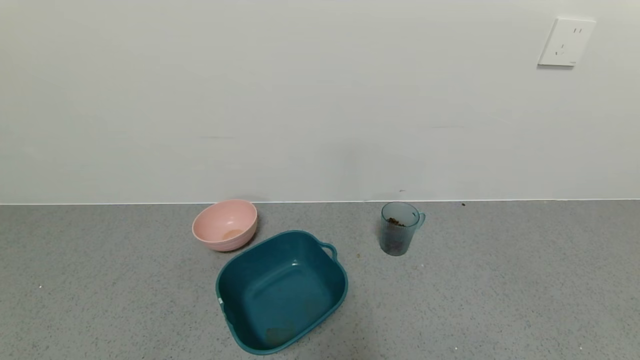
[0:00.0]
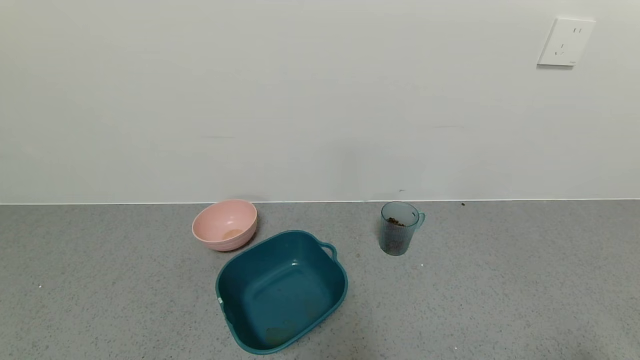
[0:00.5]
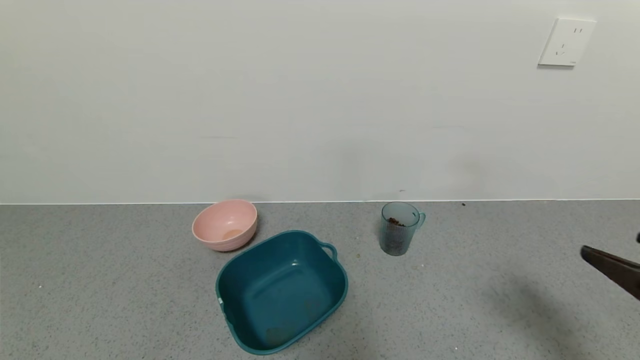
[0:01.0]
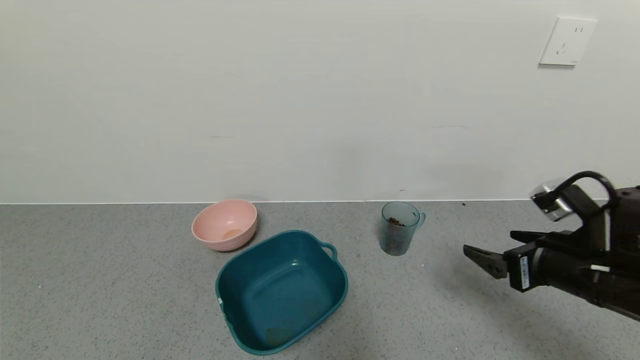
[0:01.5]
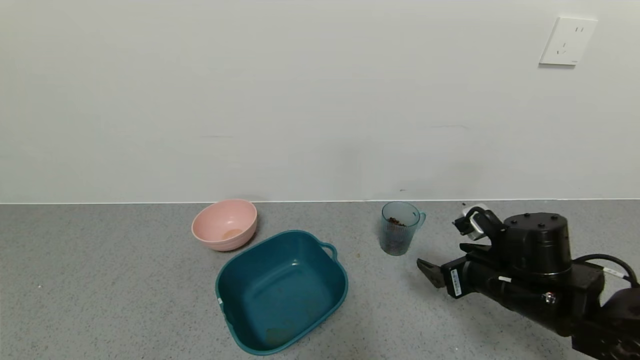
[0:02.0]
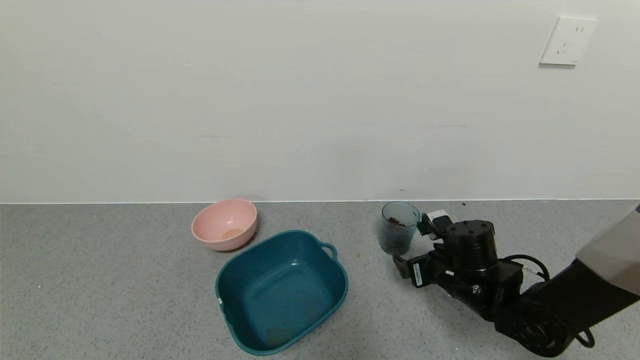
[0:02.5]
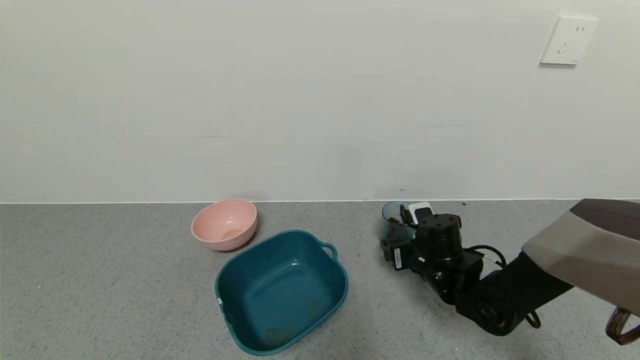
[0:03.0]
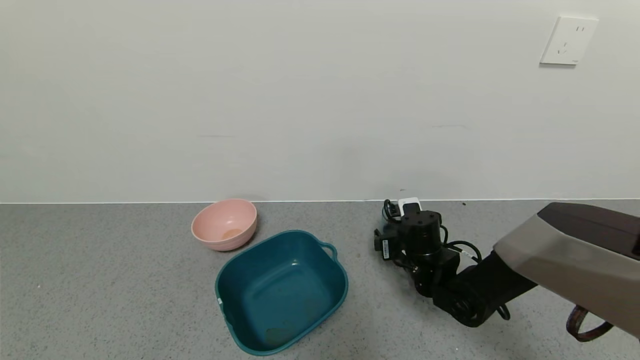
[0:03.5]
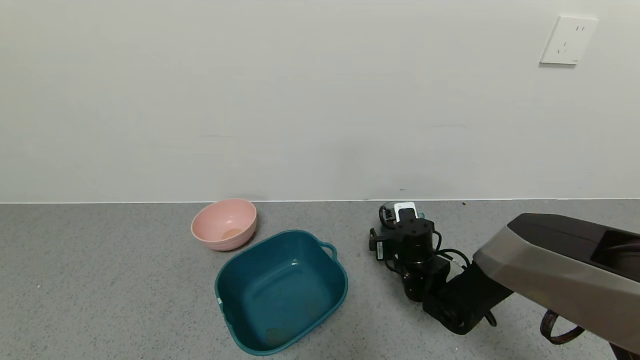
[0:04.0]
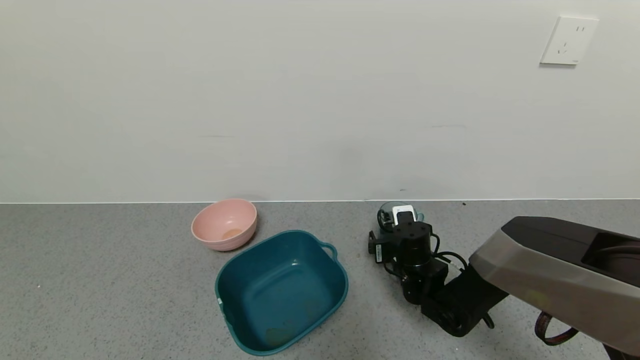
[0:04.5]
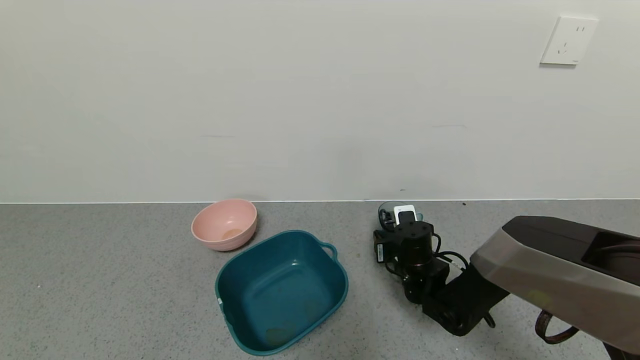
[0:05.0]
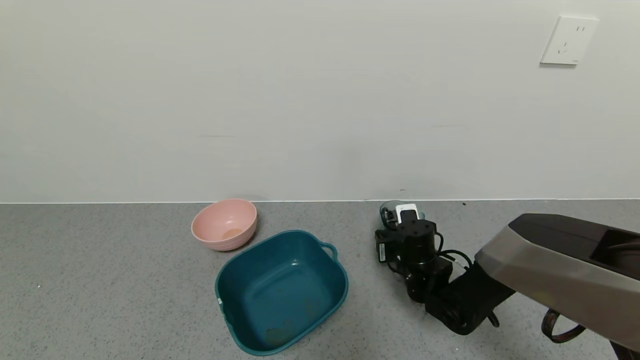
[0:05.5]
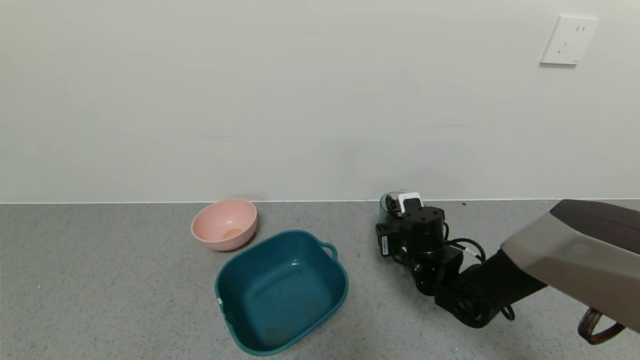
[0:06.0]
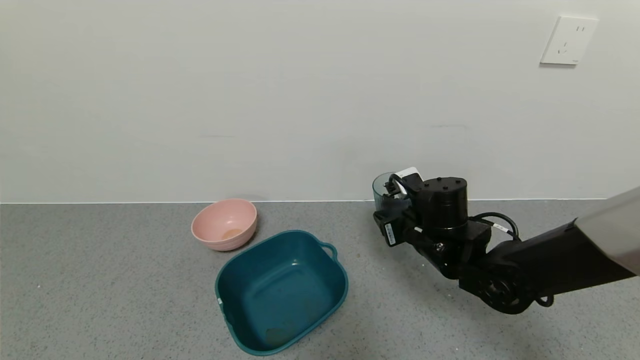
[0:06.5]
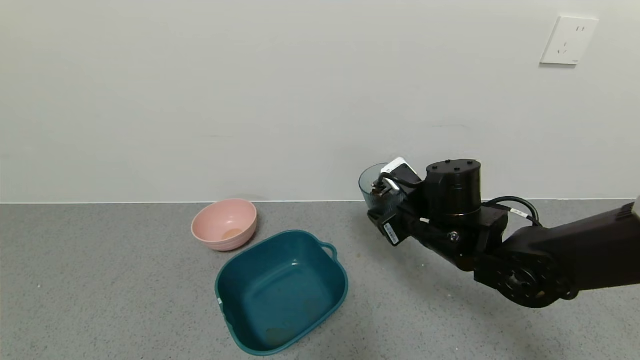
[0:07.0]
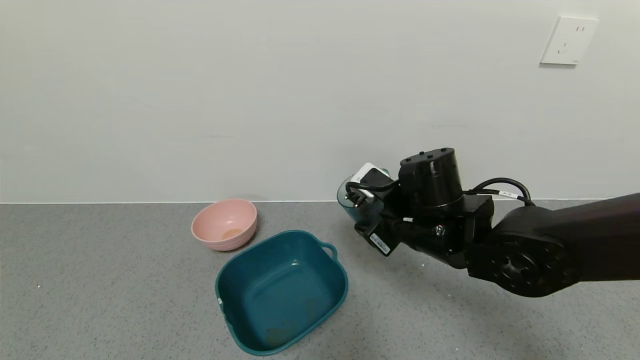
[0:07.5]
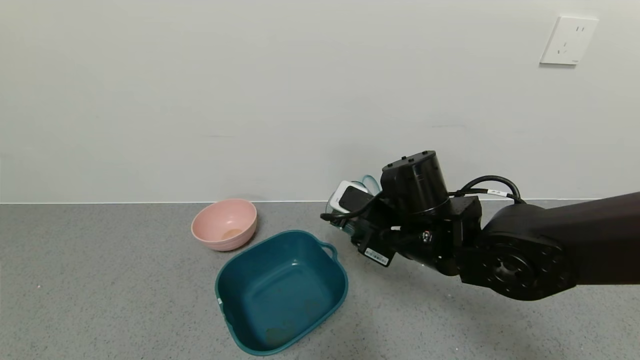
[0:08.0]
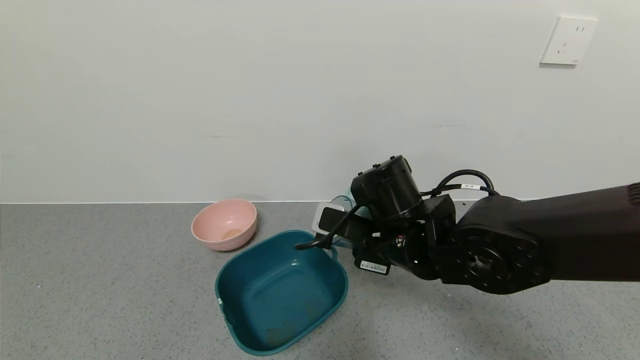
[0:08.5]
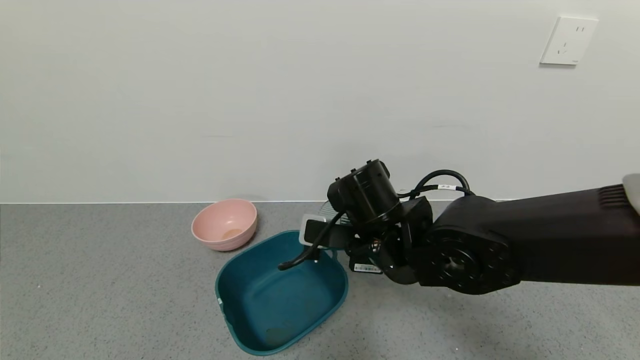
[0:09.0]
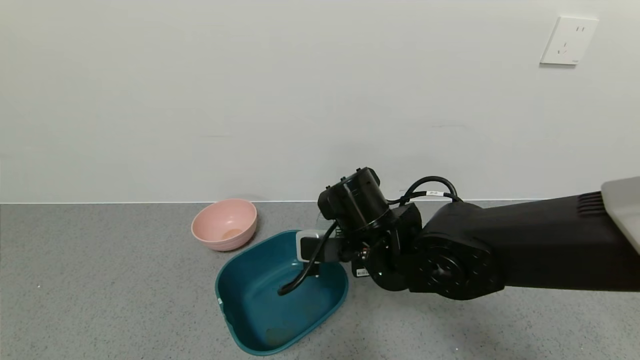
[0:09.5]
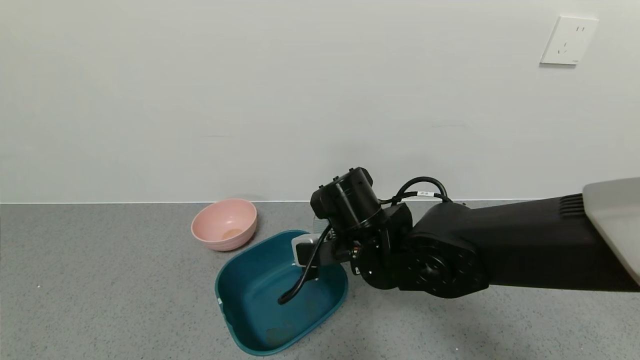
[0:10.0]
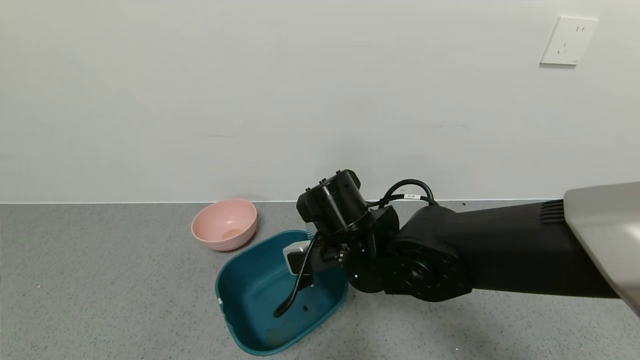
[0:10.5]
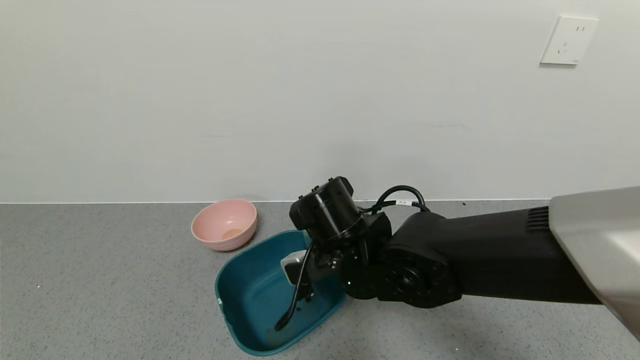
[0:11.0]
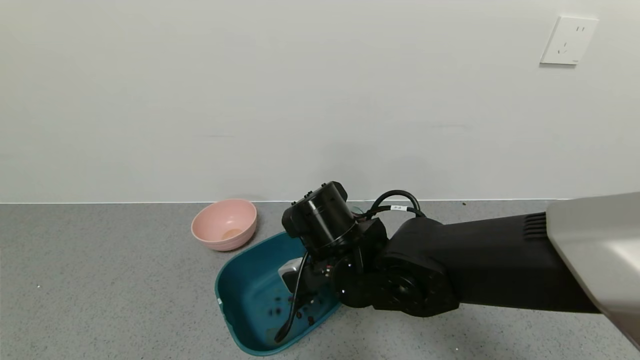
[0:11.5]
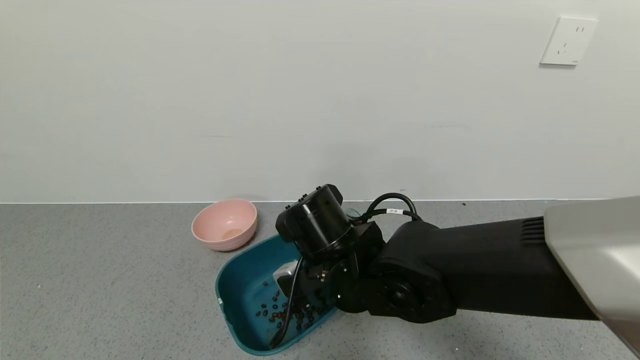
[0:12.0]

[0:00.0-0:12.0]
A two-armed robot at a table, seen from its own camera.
Task of the whole recording: use a gripper to pick up the cup and pour the solid into a bowl or tray.
Step, 0:00.0 to 0:05.0: Grasp the glass of coffee beans with the right gripper.
0:00.0 to 0:02.0: The right gripper is displaced forward and to the left by about 30 cm.
0:02.0 to 0:04.0: The right gripper is displaced forward, to the left and downward by roughly 15 cm.
0:04.0 to 0:06.0: The right gripper closes.
0:06.0 to 0:08.0: The right gripper goes approximately 15 cm upward and backward.
0:08.0 to 0:10.0: The right gripper shifts roughly 5 cm to the left.
0:10.0 to 0:12.0: The grippers move only a little.

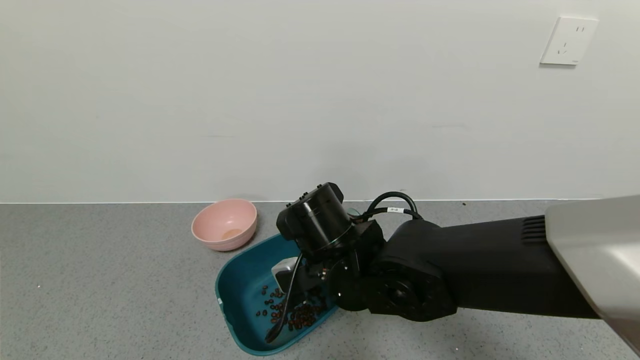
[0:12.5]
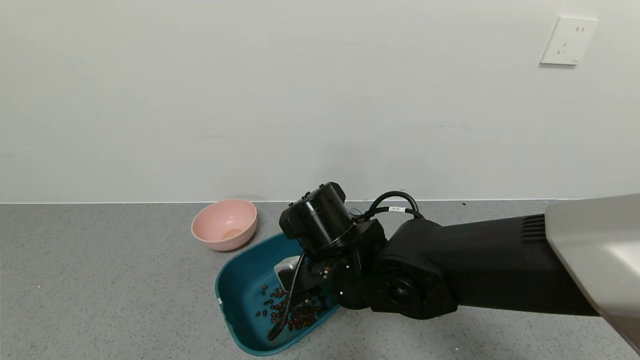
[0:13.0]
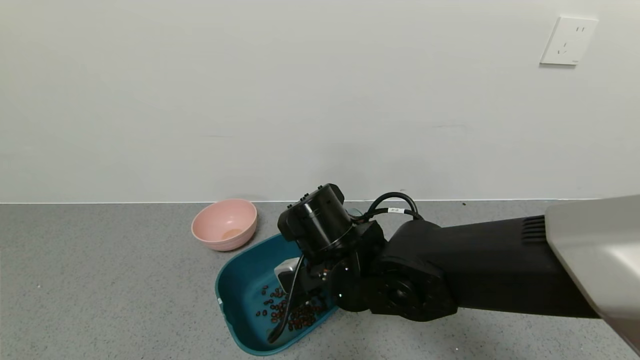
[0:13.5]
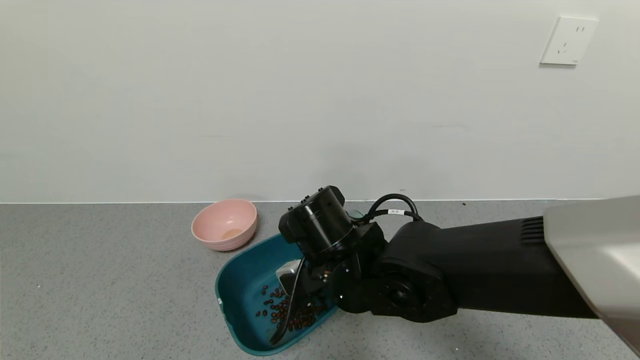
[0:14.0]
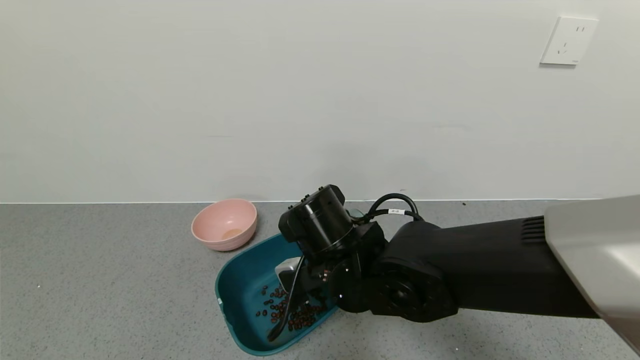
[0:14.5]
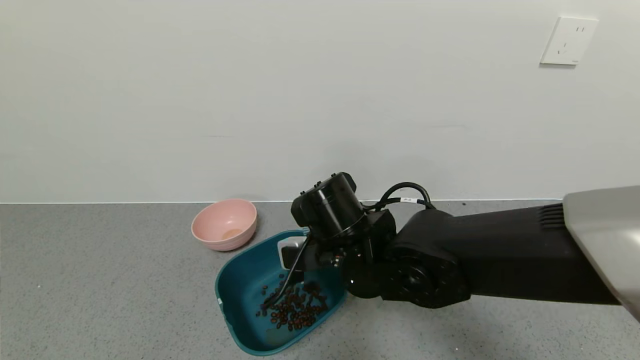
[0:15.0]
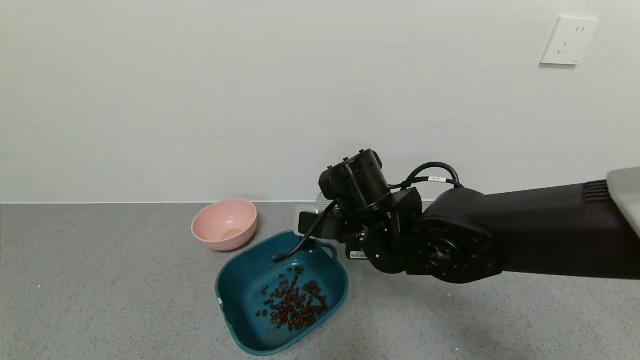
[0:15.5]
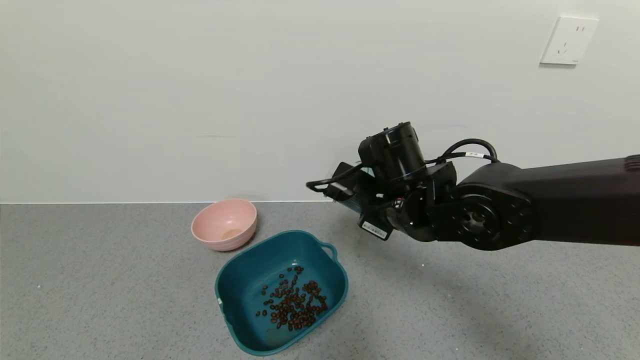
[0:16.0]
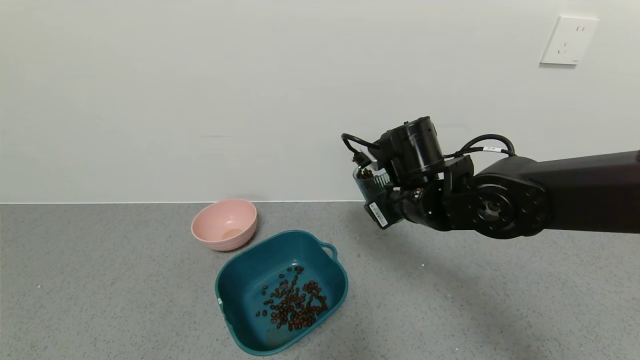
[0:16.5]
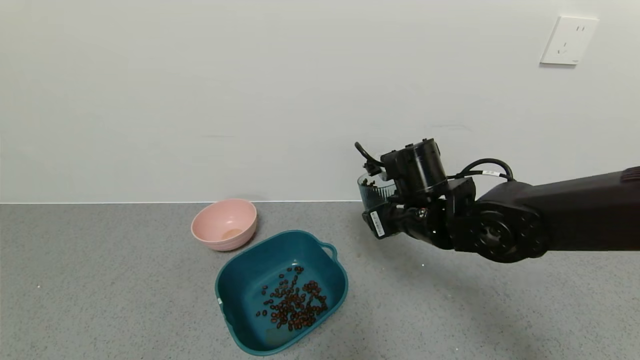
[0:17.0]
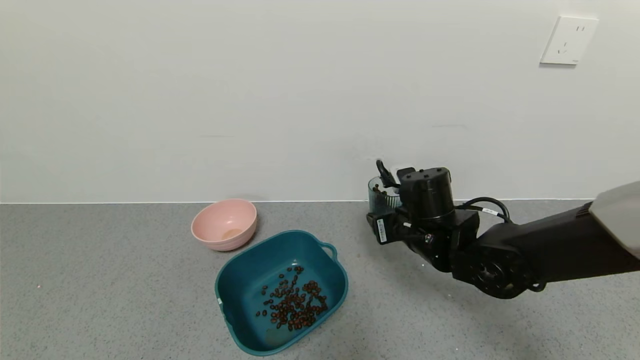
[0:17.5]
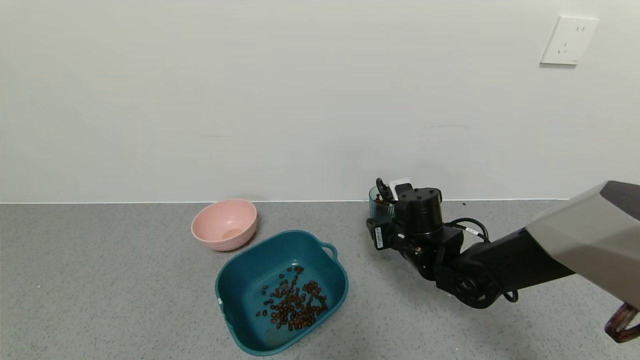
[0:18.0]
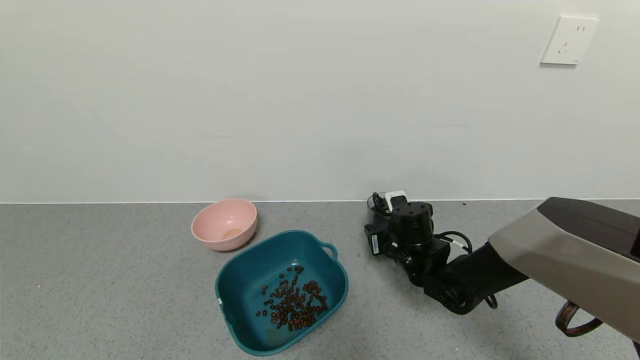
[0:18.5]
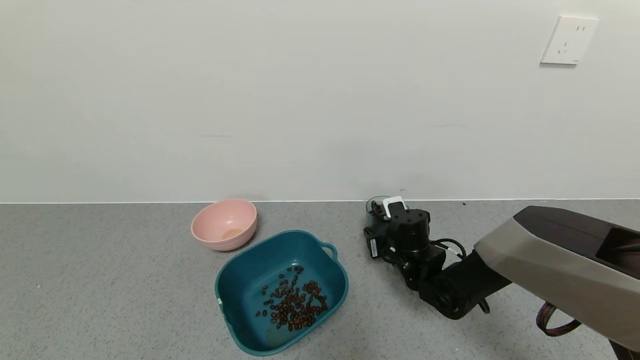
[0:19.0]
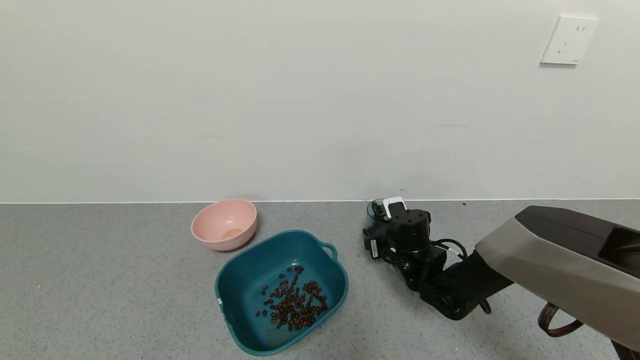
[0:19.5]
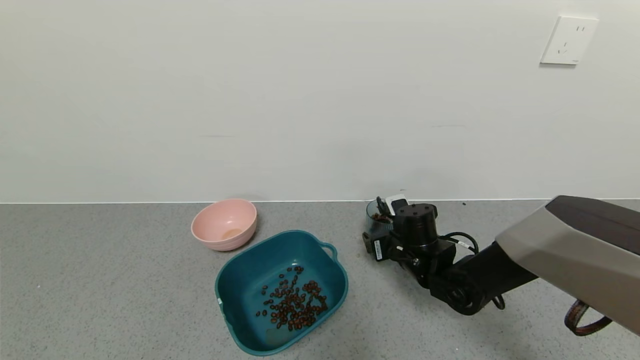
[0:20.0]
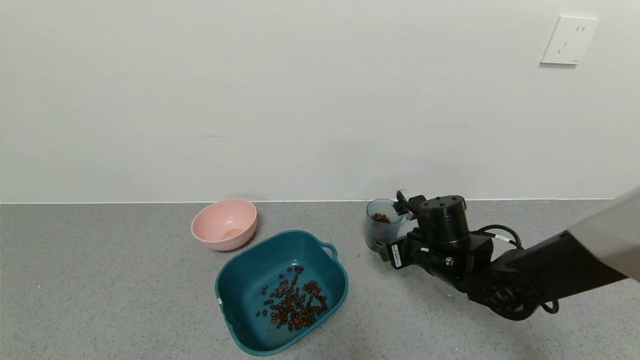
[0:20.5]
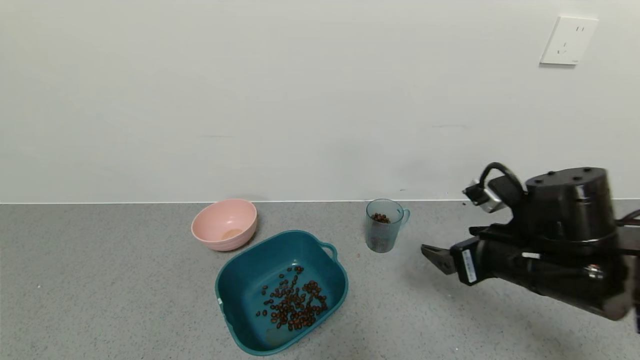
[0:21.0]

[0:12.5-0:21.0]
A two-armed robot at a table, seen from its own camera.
Task of the whole recording: use a gripper to pick up the cup and pour the solid into a bowl or tray.
Step, 0:12.5 to 0:16.0: Pour the coffee beans into the green bowl with the right gripper.
Step, 0:16.5 to 0:20.5: Place the glass cup with the right gripper.
0:12.5 to 0:14.5: Both grippers stay about where they are.
0:14.5 to 0:16.5: The right gripper is displaced to the right and forward by roughly 10 cm.
0:16.5 to 0:19.0: The right gripper travels downward by some 15 cm.
0:19.0 to 0:21.0: The right gripper shifts roughly 20 cm backward, upward and to the right, and opens up.
